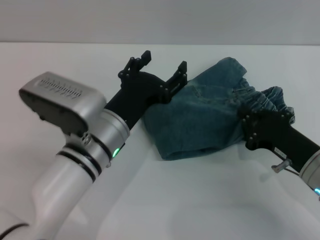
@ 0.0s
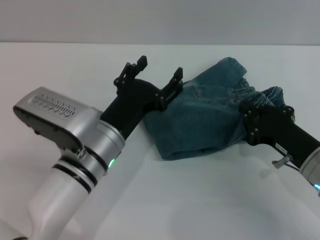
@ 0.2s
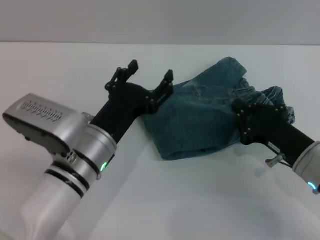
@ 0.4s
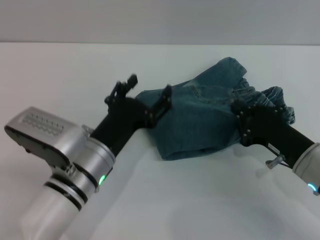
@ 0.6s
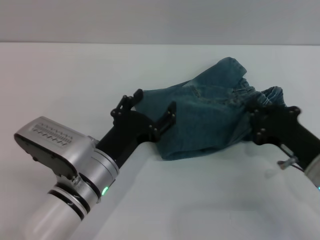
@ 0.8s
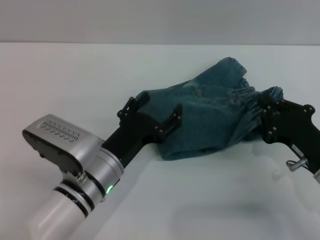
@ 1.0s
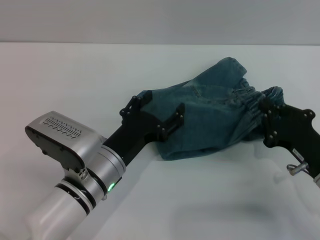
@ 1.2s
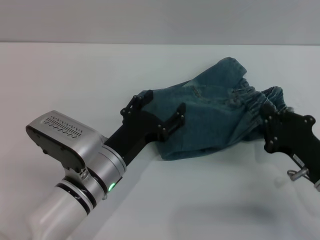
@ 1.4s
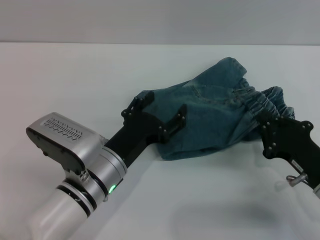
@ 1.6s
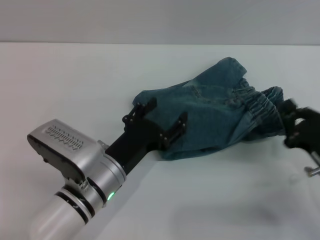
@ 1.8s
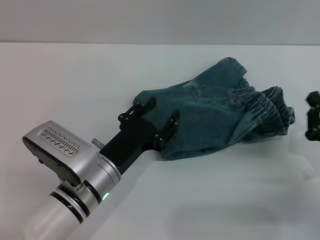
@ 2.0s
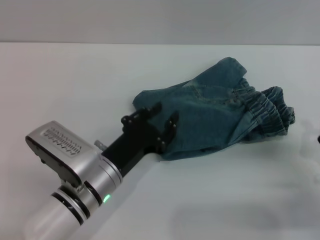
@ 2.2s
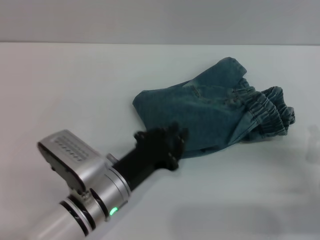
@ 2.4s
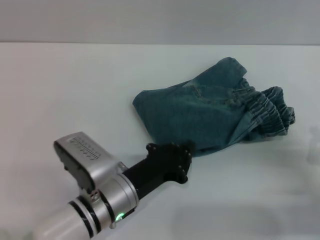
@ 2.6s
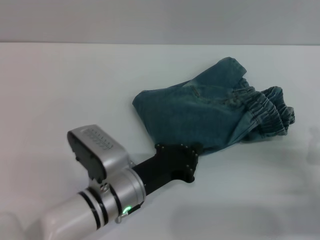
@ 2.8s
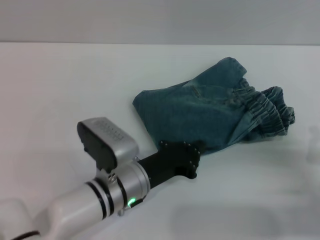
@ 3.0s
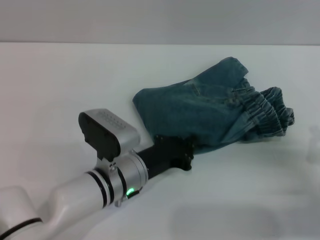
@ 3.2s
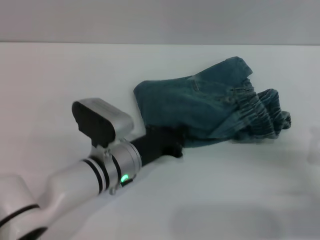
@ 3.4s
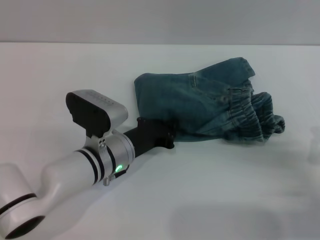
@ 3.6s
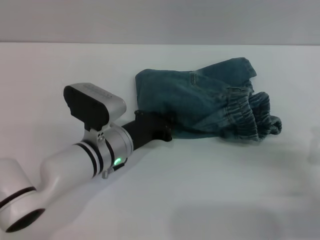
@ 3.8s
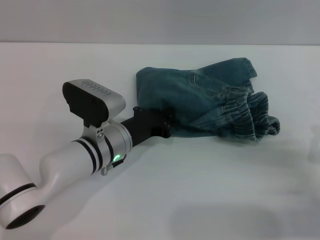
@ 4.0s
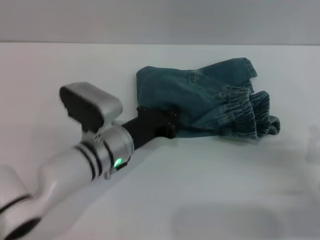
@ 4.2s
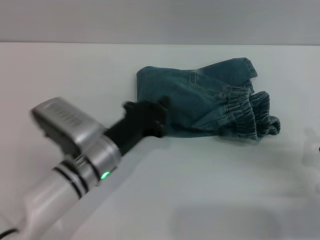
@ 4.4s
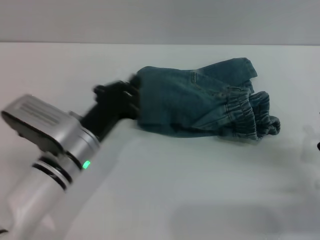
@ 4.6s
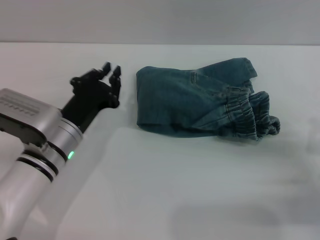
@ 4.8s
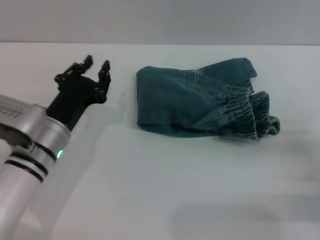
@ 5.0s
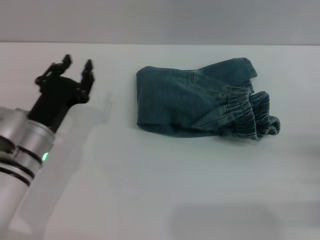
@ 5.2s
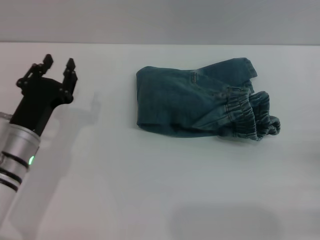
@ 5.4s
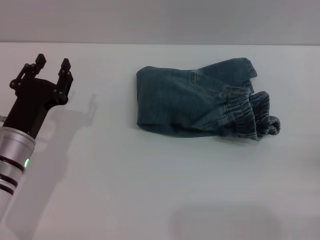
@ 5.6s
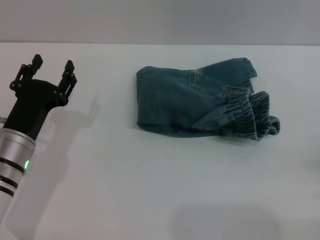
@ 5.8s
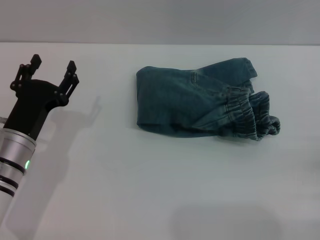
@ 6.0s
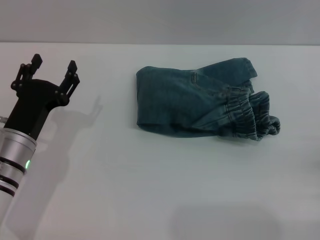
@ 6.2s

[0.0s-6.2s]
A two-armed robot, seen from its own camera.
Step, 1.2s to 4.6s: Place the folded trousers onto the center area with the left grippers.
0.0s to 1.6s: The left gripper changes place by some 5 cm.
1.6s to 3.2s: The left gripper closes up. Meanwhile the right gripper is displaced to the right by about 5 cm.
3.2s to 4.6s: The left gripper moves to the left, about 5 cm.
4.6s to 6.2s: The left gripper goes about 10 cm to the left, and opens, while the right gripper travels to the right by roughly 5 cm, and opens.

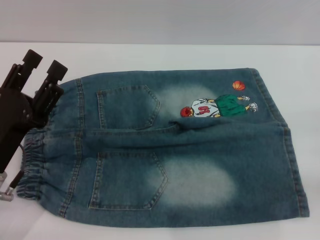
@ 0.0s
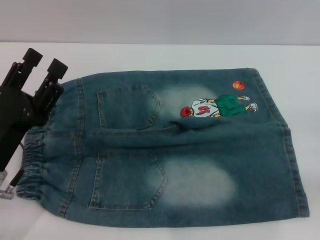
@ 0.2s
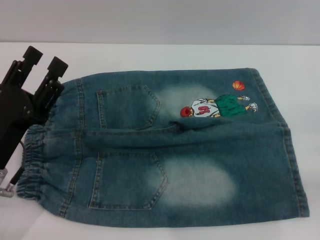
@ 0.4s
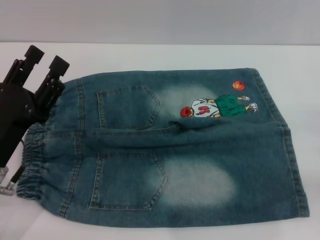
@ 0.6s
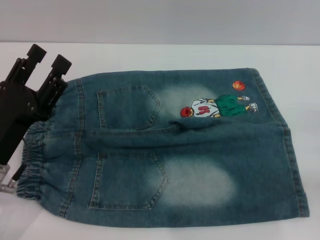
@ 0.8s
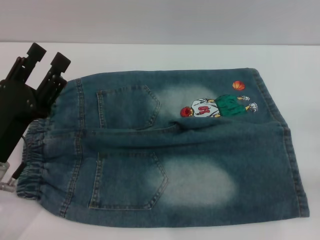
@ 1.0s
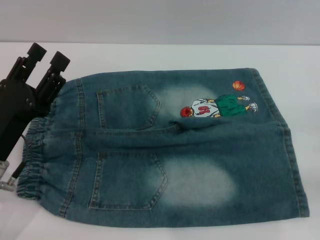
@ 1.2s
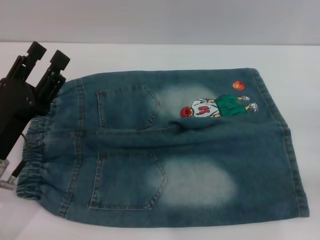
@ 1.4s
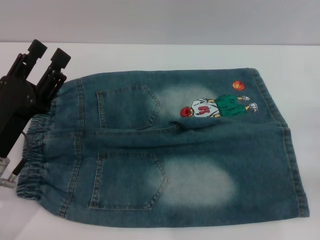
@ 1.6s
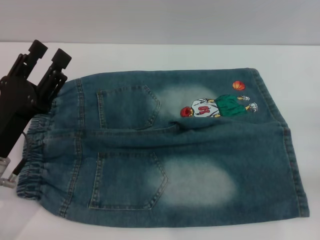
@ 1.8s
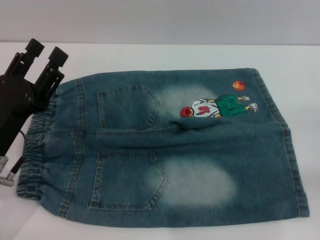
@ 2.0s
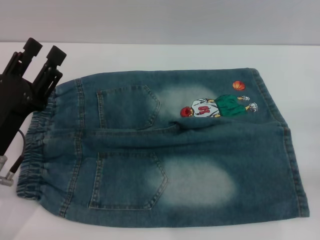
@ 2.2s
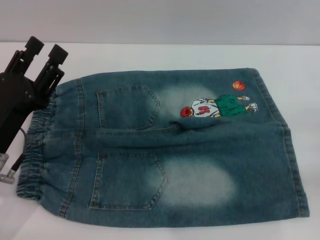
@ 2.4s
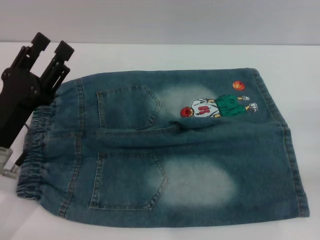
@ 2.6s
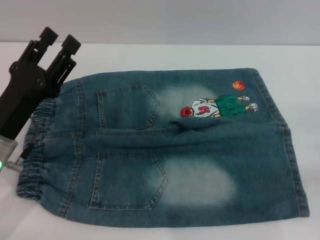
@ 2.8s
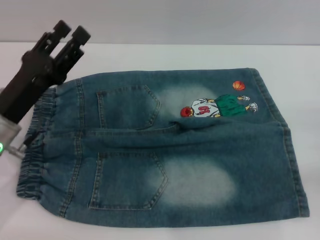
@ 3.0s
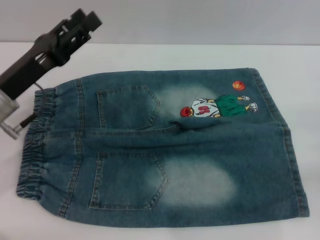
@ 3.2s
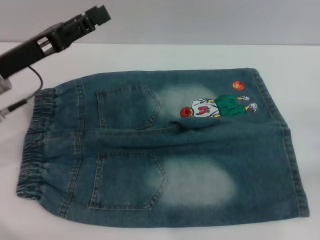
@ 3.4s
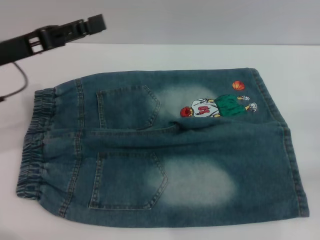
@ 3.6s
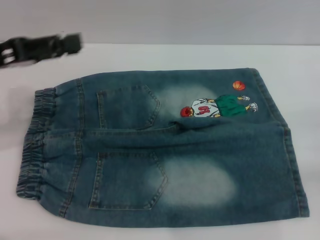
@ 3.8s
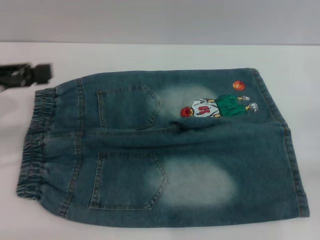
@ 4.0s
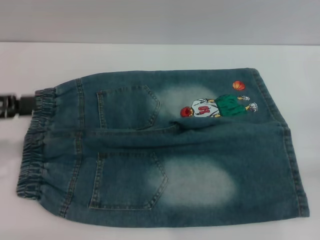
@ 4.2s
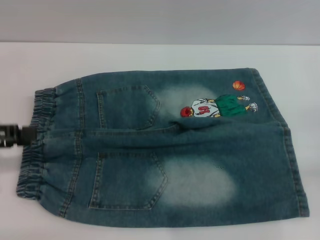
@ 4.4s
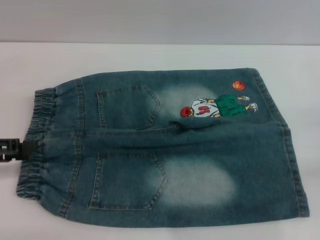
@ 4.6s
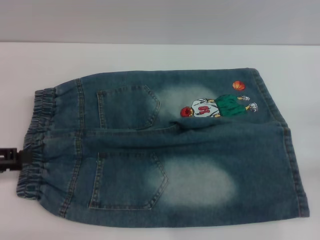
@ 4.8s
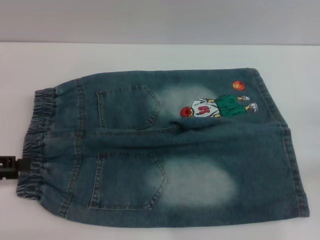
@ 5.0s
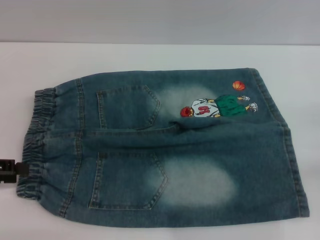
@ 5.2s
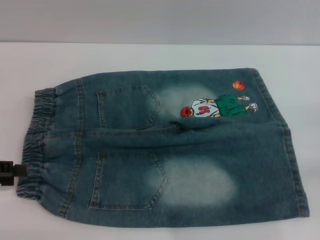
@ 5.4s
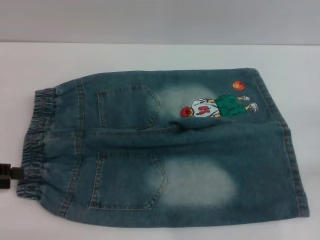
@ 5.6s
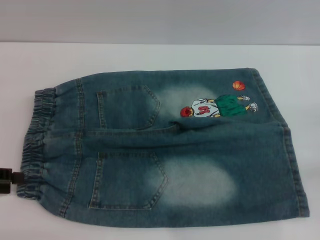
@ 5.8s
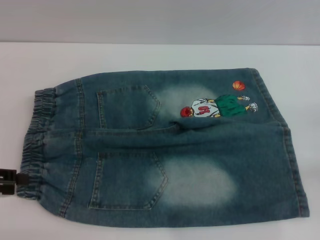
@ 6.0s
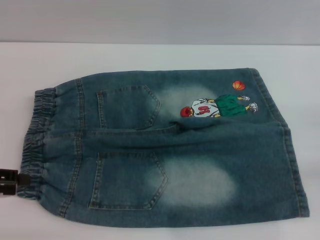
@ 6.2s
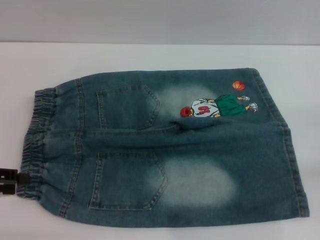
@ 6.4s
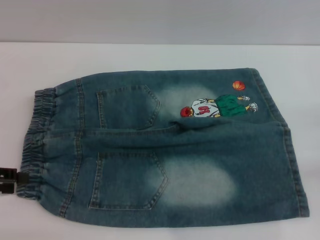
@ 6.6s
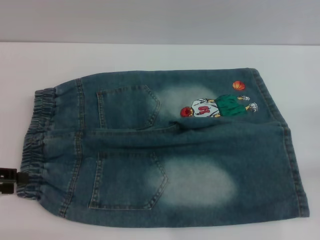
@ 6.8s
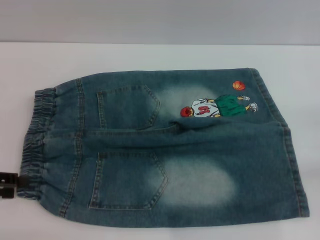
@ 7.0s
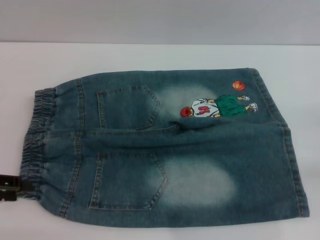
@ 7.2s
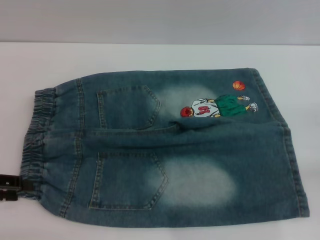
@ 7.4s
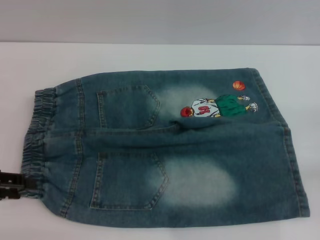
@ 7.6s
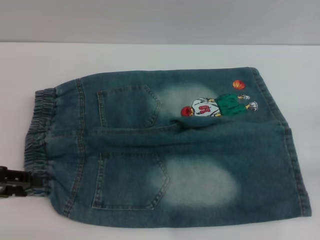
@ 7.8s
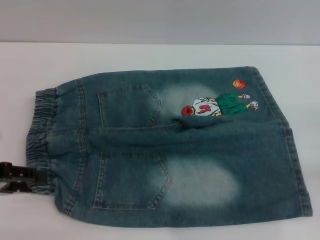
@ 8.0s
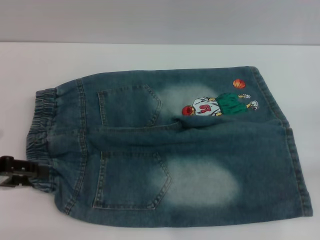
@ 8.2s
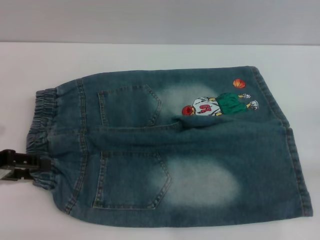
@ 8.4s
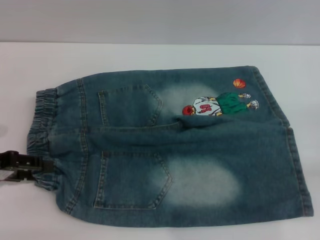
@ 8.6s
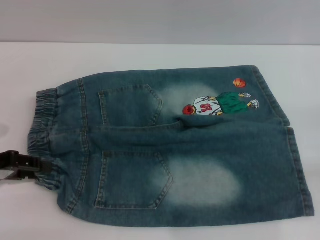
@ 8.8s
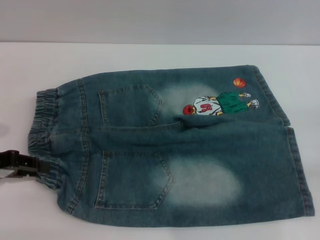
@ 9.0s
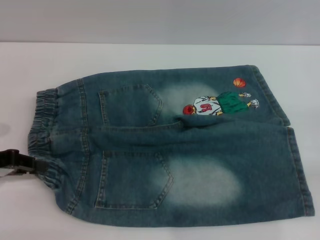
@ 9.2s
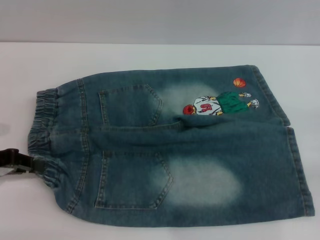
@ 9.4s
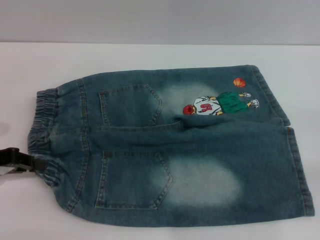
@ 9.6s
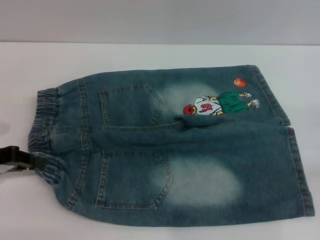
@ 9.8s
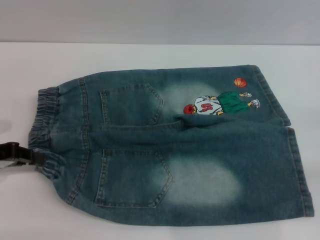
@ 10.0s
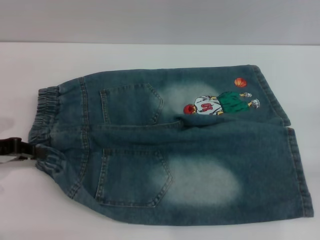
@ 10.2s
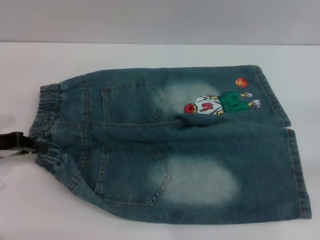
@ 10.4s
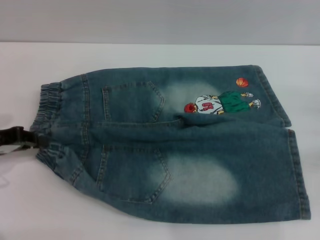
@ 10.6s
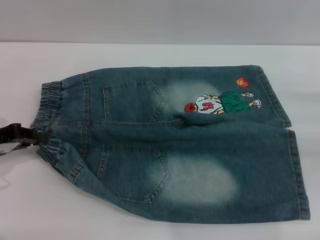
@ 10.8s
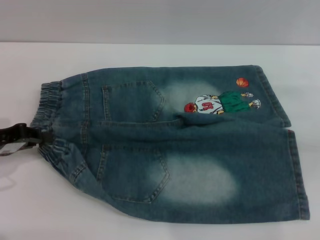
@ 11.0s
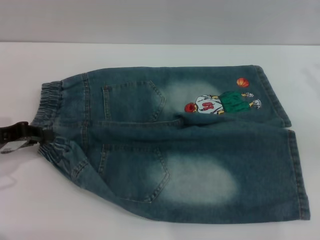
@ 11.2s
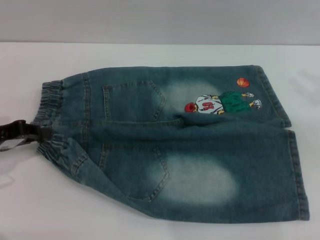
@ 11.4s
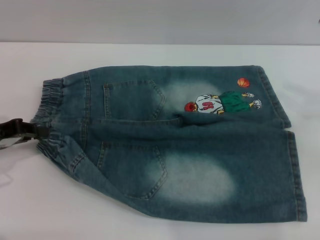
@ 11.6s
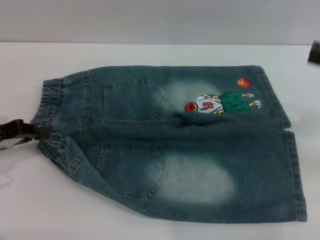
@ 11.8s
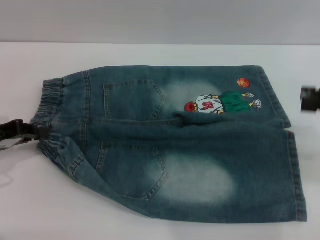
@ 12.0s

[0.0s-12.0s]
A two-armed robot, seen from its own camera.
0.0s to 1.6s: The grippers make only small movements.
1.6s to 3.0s: The grippers make only small movements.
3.0s to 4.4s: The left gripper heads to the left and upward, covering about 15 cm.
7.6s to 9.0s: The grippers stay close to where they were, moving slightly.
9.0s to 10.4s: The left gripper closes its fingers.
10.4s to 12.0s: The right gripper shifts about 15 cm upward.

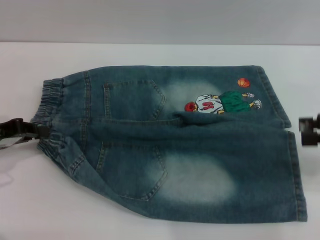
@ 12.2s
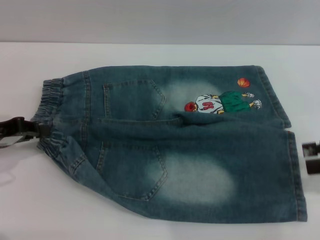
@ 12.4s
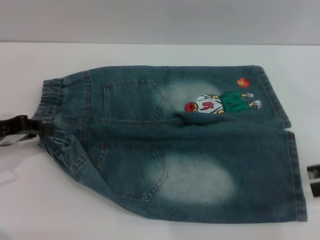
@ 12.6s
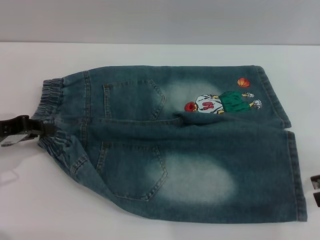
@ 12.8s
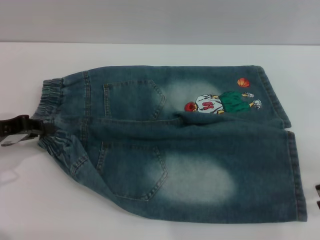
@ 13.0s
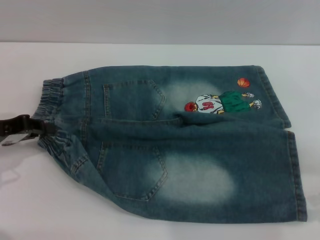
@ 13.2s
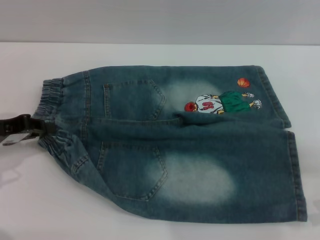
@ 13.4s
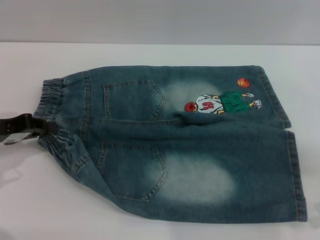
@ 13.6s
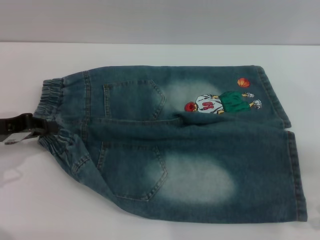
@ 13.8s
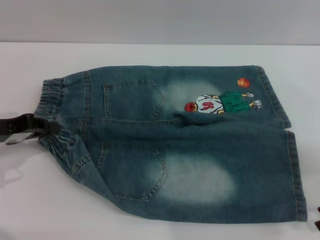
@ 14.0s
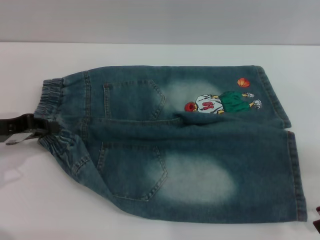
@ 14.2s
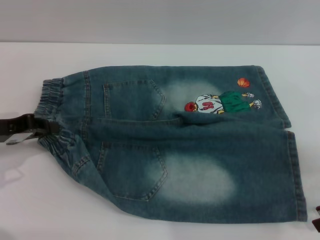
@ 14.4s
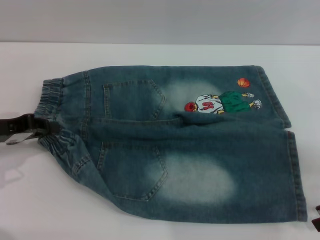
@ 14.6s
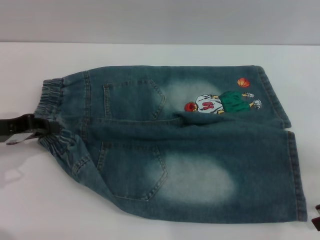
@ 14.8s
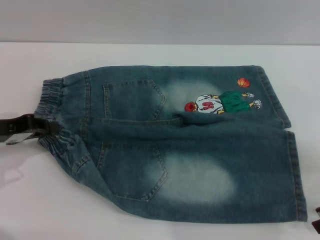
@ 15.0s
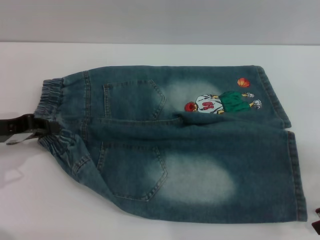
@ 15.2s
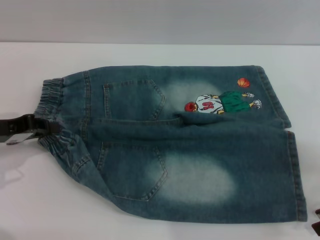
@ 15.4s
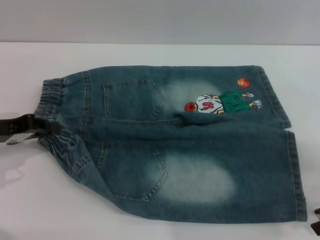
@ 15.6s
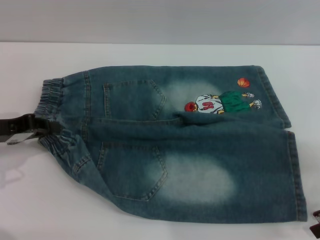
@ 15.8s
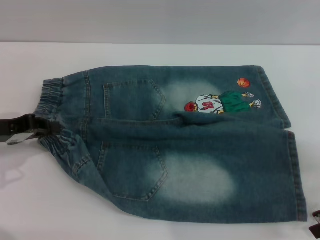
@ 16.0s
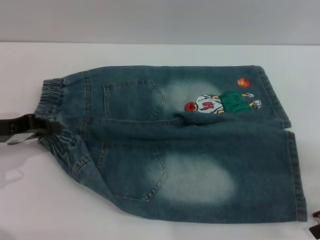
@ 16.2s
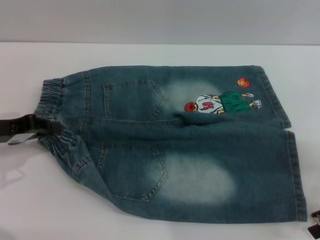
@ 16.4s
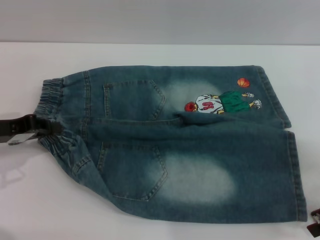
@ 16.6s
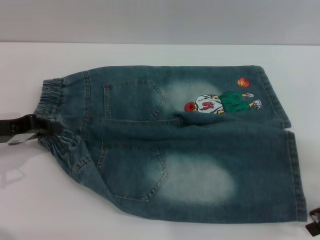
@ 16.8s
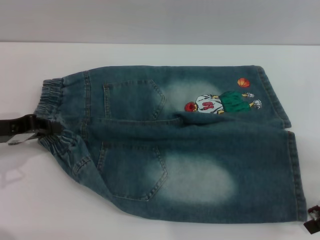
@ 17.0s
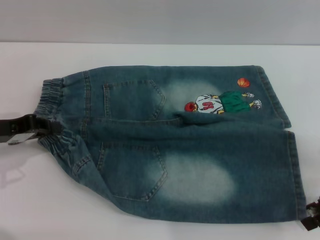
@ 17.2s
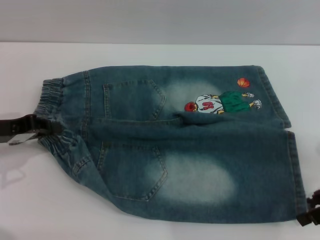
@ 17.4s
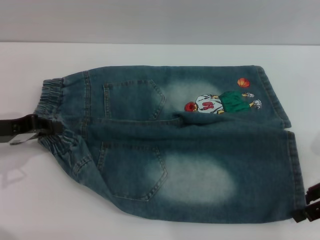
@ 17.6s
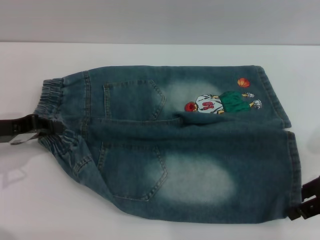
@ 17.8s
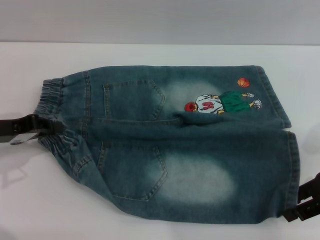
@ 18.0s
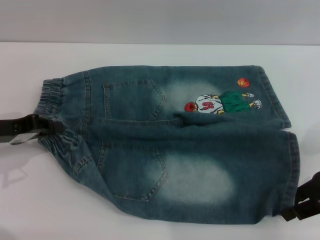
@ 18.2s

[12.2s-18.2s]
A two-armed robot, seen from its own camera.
12.2s to 13.8s: The right gripper moves about 5 cm.
15.2s to 16.6s: Neither gripper changes place.
16.6s to 18.2s: The right gripper changes place by about 5 cm.
